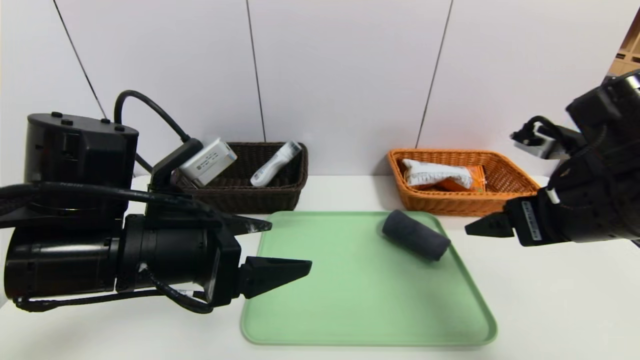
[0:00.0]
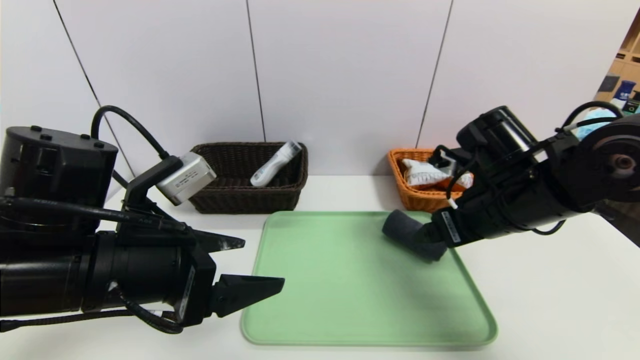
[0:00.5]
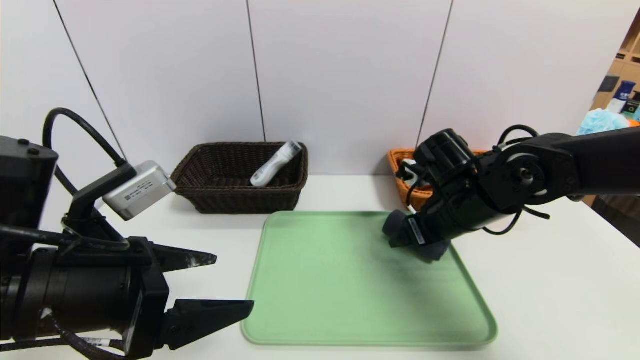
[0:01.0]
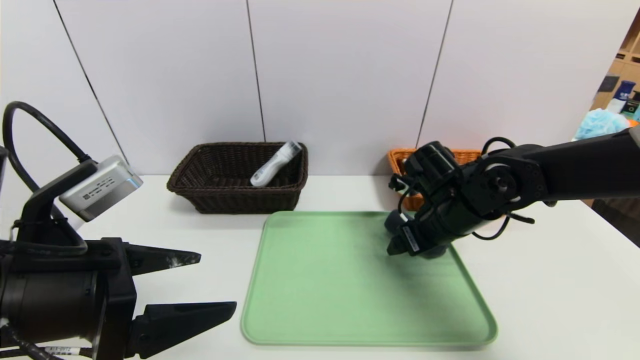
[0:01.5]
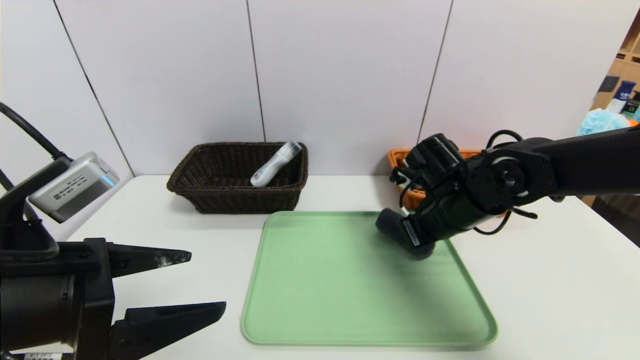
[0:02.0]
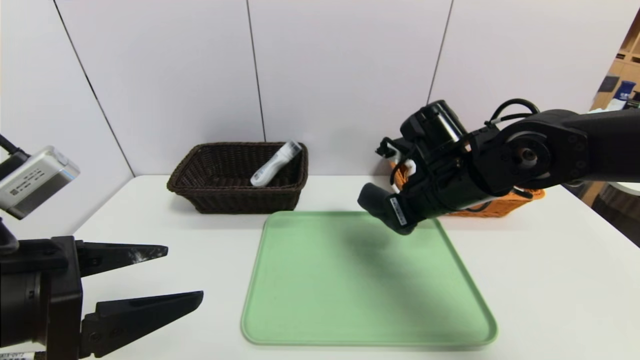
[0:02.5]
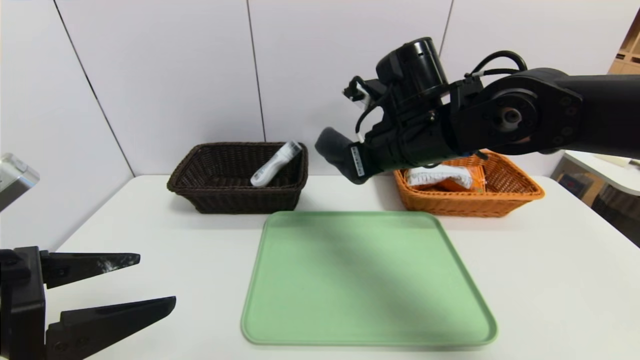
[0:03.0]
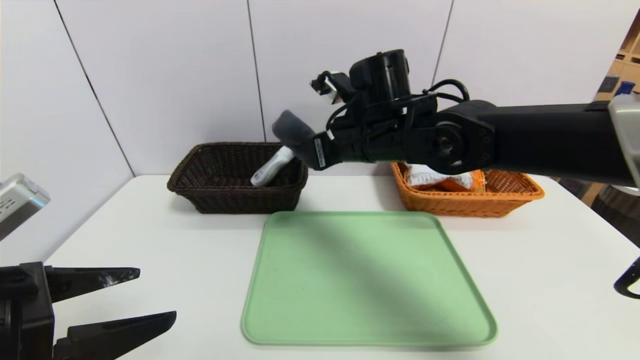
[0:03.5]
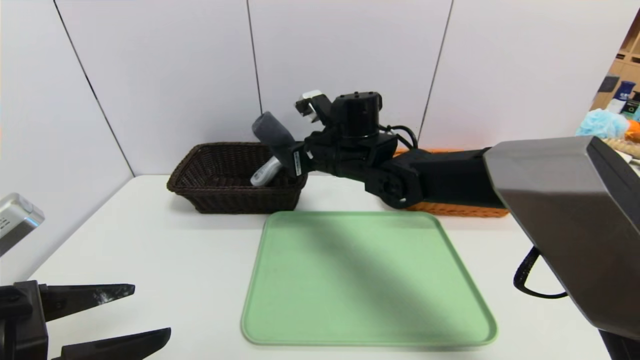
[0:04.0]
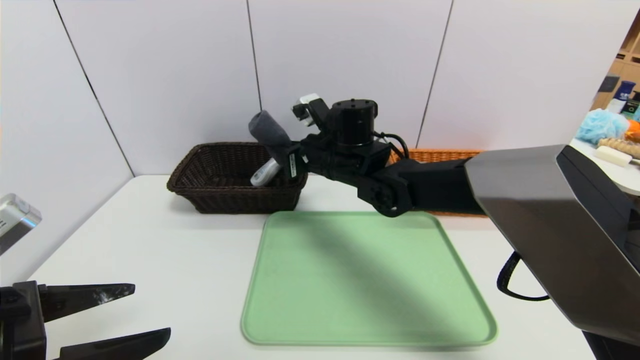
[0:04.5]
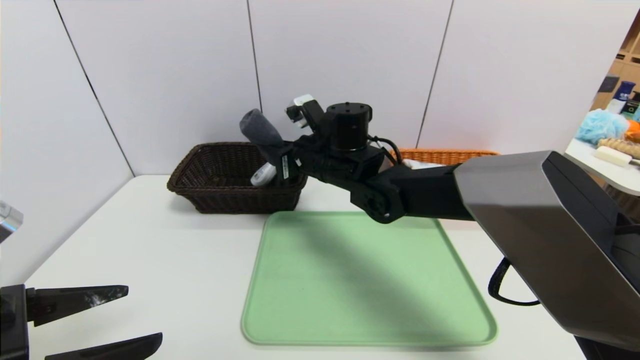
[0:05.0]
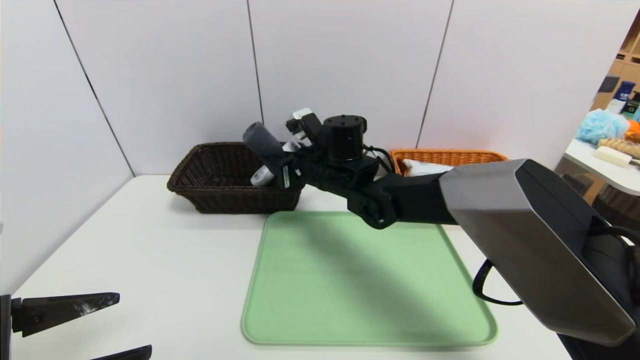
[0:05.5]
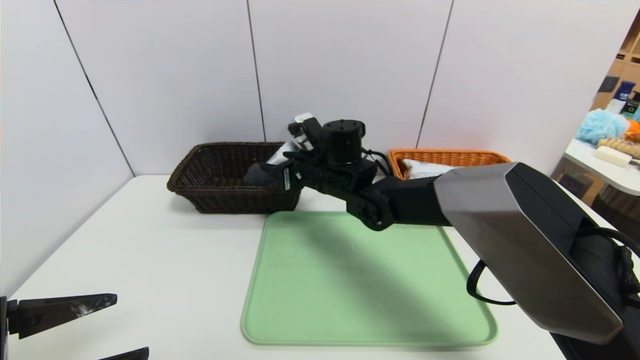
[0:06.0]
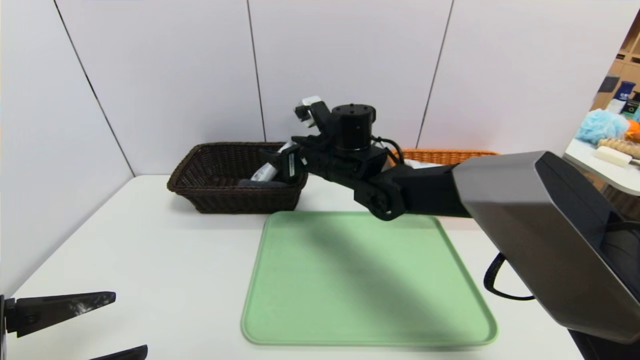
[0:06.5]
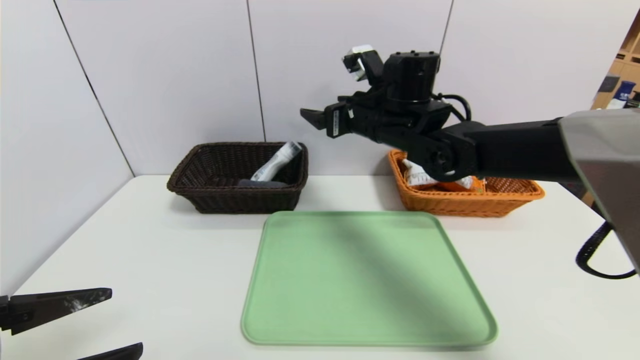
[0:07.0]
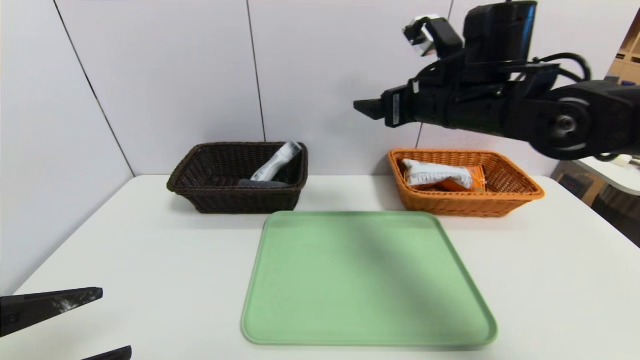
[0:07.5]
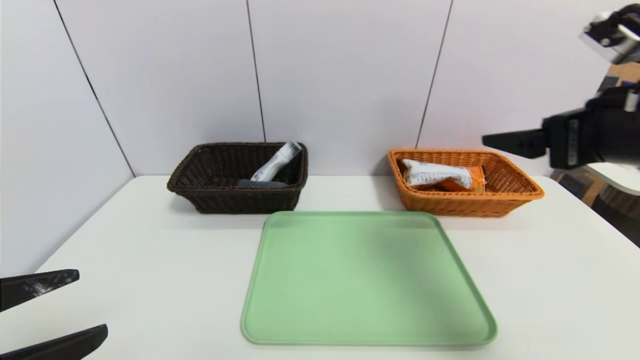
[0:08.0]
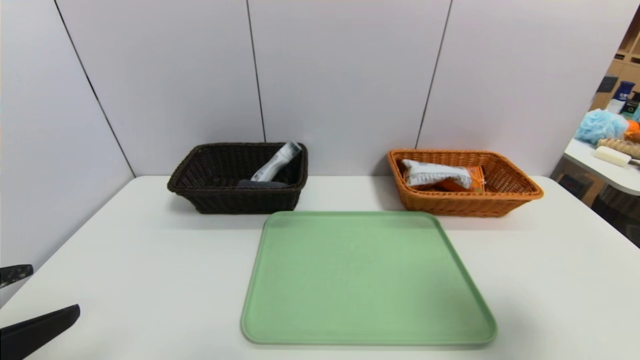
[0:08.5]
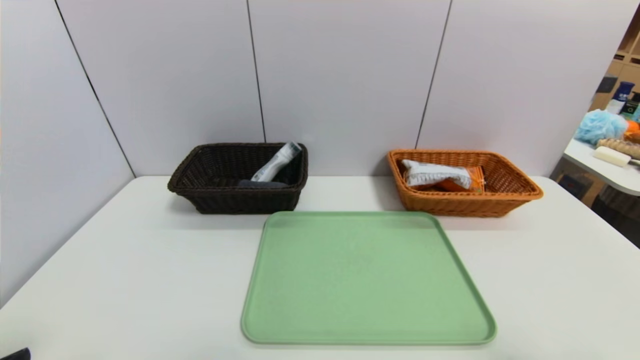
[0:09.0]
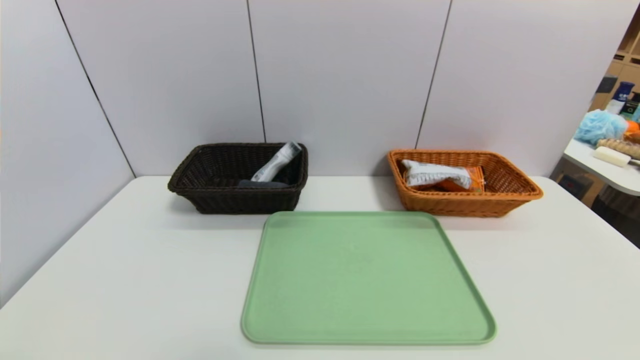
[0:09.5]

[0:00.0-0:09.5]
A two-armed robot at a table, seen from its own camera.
Task of the whole recording: place the food in the right basket with the right gripper, and place the non food items in the left basket with the left gripper.
Step, 0:00.0 to 0:06.5: Grasp the grey towel and put it in the left basket.
0:00.0 to 0:02.0: The left gripper shifts some 10 cm to the left and backward, while the right gripper shifts about 15 cm forward, downward and to the left, and closes.
0:02.0 to 0:04.0: The left gripper changes place by some 5 cm. Meanwhile the right gripper heads to the left and forward, covering roughly 15 cm.
0:04.0 to 0:05.5: The grippers stay close to where they were, moving slightly.
0:05.5 to 0:07.5: The right gripper heads to the right and upward, covering roughly 20 cm, and opens its fingers.
0:07.5 to 0:09.5: The left gripper shifts roughly 10 cm backward. The right gripper is displaced backward and to the right by some 40 cm.
